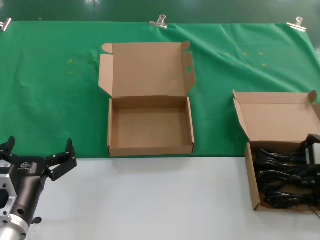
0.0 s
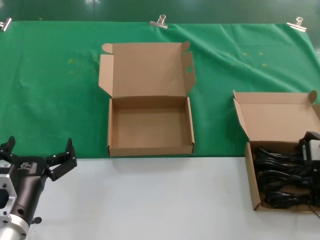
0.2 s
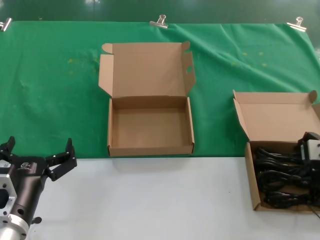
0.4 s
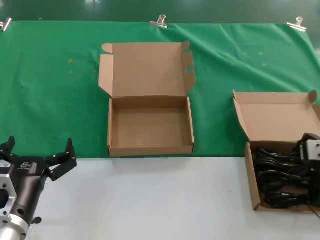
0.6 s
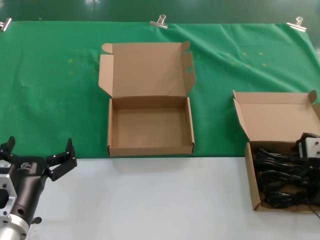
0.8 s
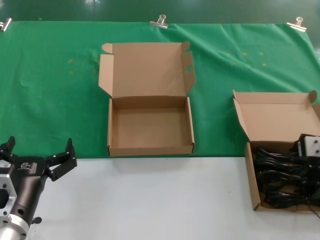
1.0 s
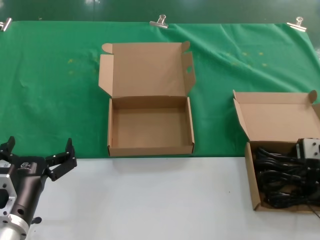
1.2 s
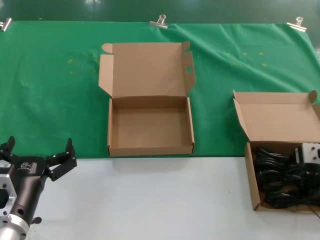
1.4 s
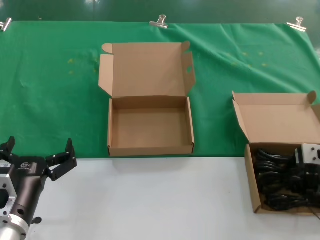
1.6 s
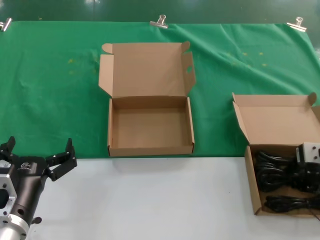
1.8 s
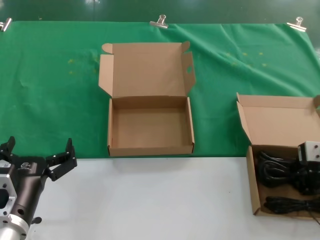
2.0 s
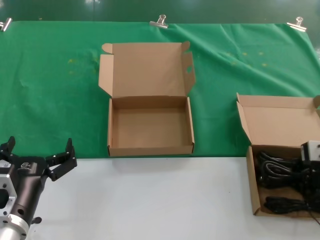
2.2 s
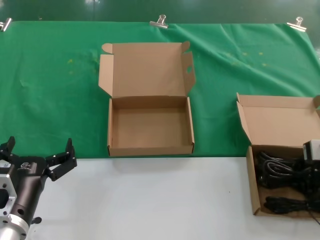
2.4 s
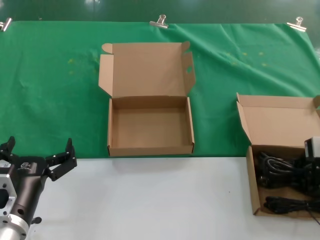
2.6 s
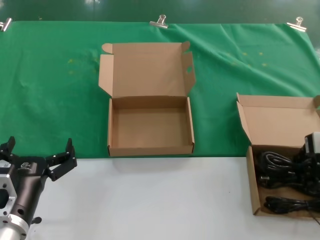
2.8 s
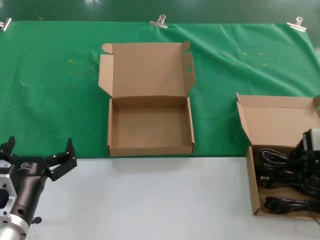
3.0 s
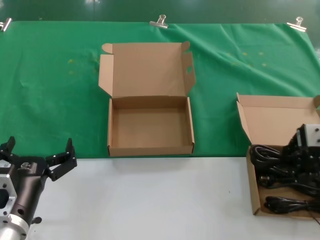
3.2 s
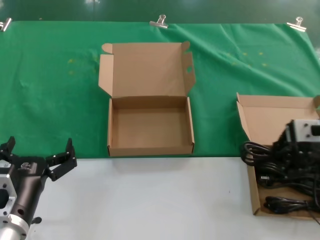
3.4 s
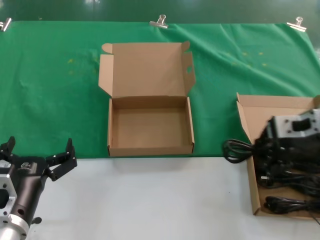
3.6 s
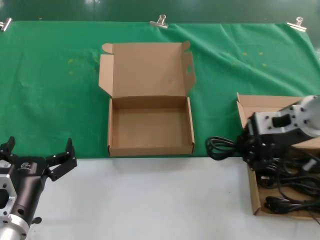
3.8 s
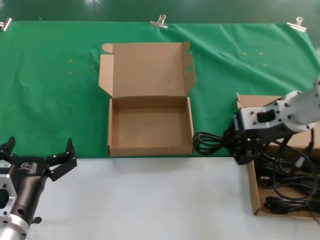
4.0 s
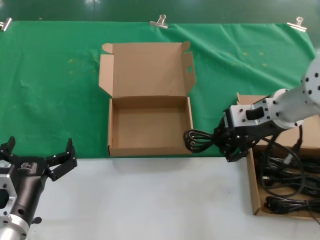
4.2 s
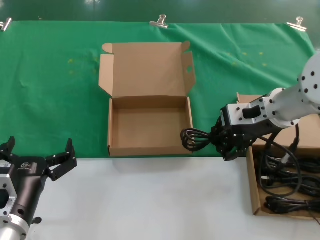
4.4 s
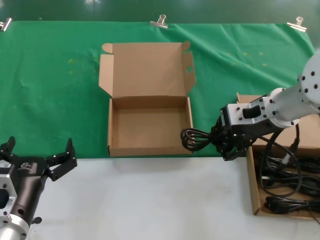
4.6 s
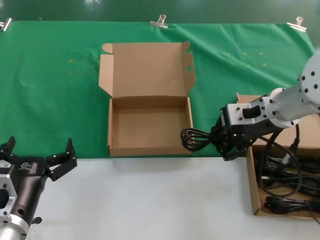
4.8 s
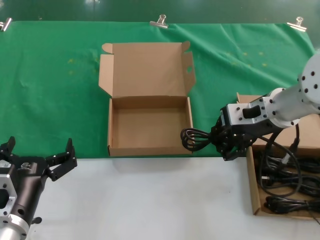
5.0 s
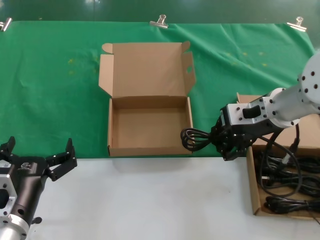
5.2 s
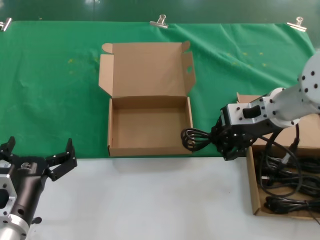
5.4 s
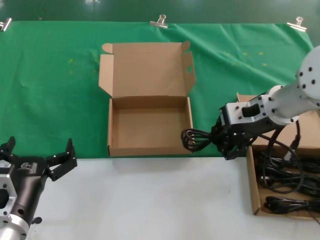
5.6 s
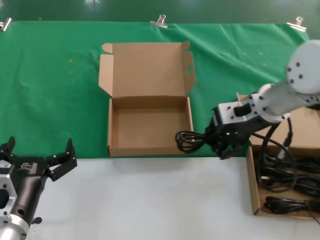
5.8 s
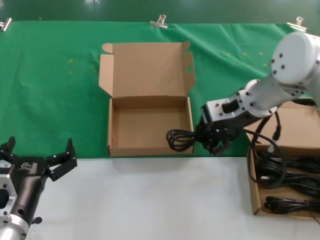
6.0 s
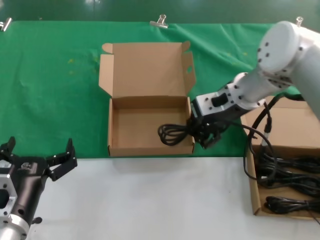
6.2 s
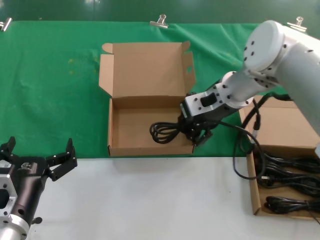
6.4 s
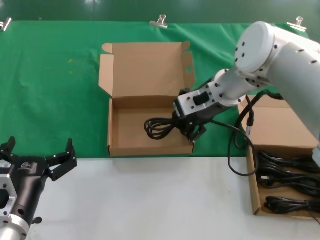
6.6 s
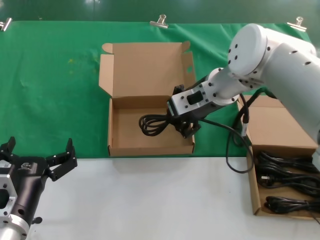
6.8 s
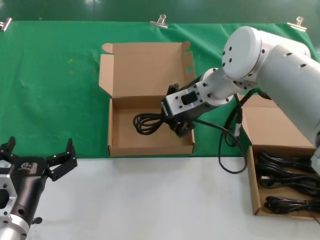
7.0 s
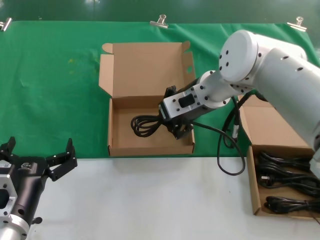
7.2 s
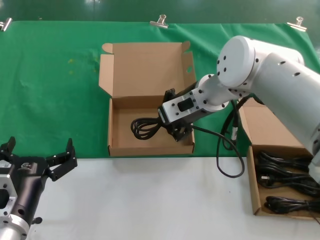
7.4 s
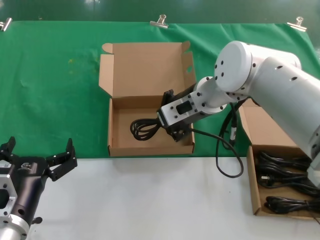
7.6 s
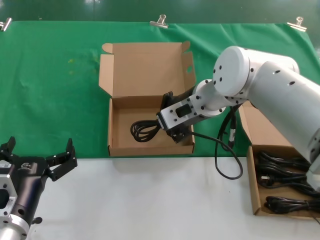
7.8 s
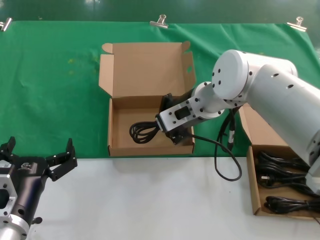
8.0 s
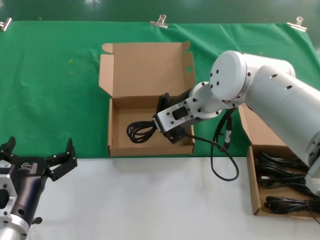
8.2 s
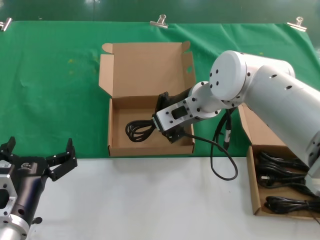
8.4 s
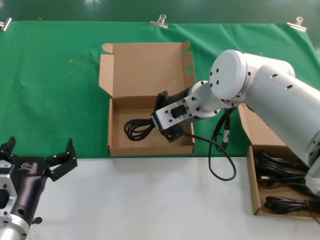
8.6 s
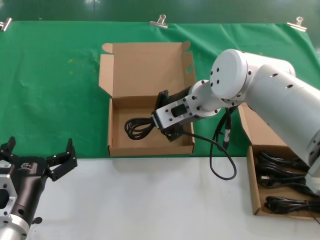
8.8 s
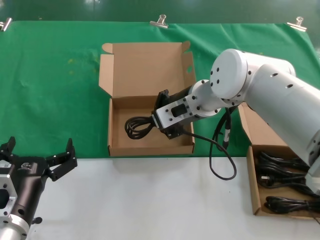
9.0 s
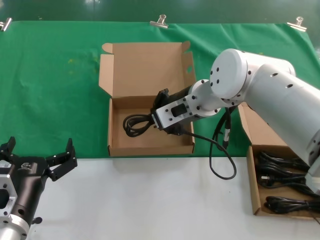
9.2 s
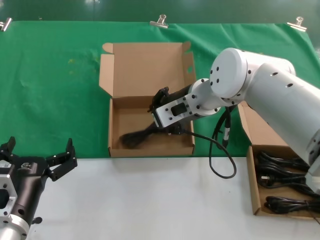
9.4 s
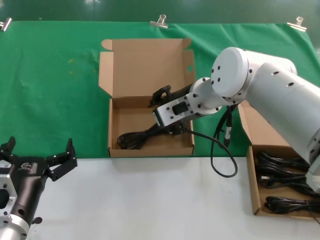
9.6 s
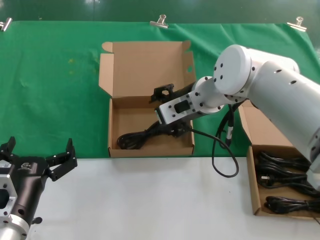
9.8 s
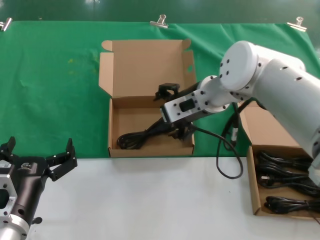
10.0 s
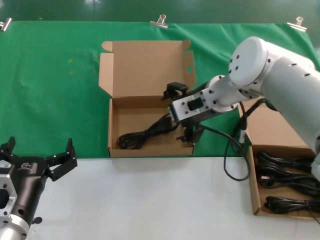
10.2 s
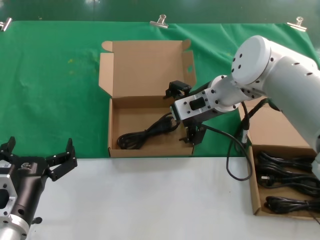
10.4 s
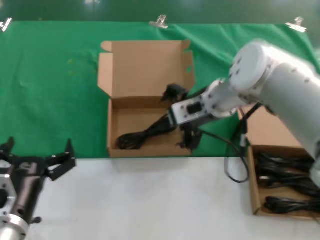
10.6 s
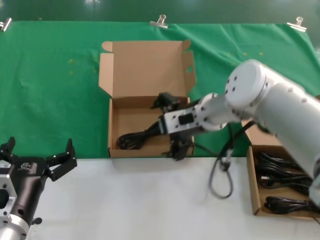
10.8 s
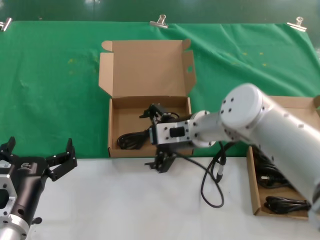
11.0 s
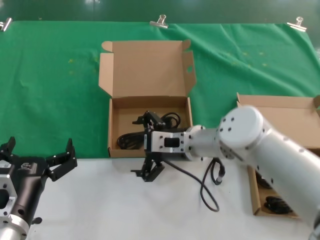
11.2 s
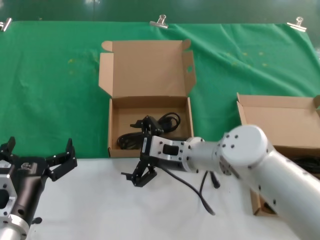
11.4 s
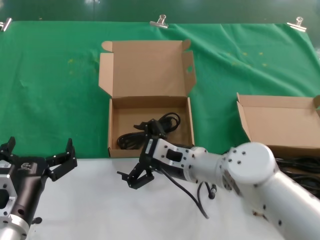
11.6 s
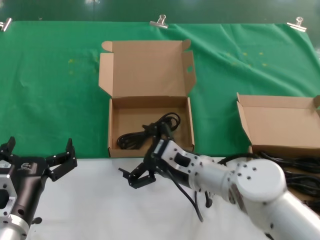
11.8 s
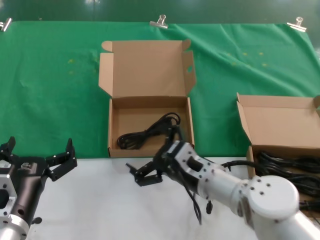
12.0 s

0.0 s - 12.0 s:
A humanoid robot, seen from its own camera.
Task of the whole recording: take the parts from the box containing them and put them into an empty box.
Step, 1.8 s - 9.2 s: Place the data cable in the another box.
0.0 s - 1.6 s: The hands make only small movements.
1.6 s - 3.0 s: The right hand changes place by about 5 cm.
3.0 s - 4.4 s: The right hand goes roughly 15 cm to the left and forward.
4.4 s - 6.0 s: The hands make only small movements.
6.0 s - 7.6 s: The right hand travels to the left by roughly 10 cm.
7.6 s - 10.4 s: The hands make only small movements.
10.4 s - 12.0 s: The right hand is displaced downward and backward by about 20 cm.

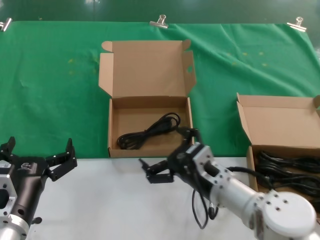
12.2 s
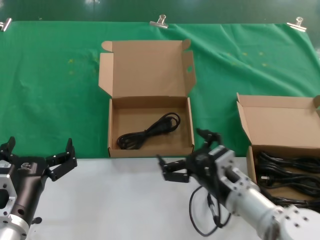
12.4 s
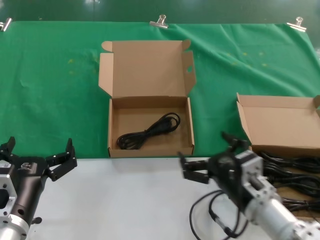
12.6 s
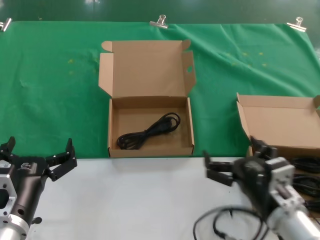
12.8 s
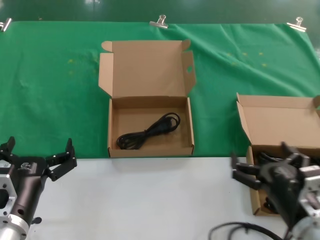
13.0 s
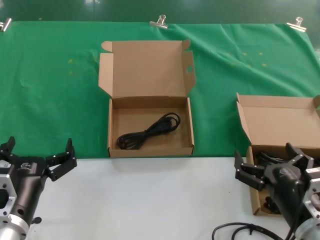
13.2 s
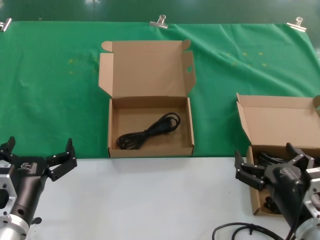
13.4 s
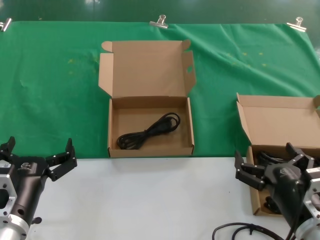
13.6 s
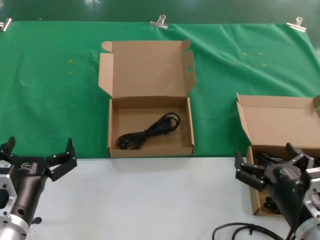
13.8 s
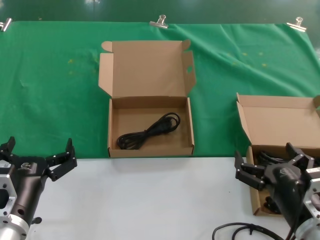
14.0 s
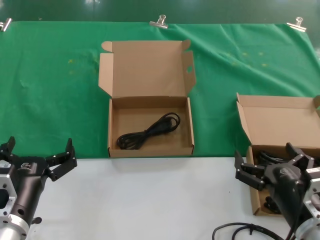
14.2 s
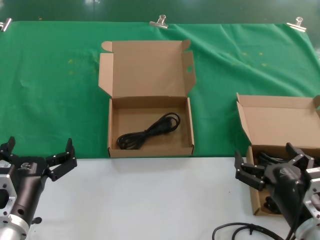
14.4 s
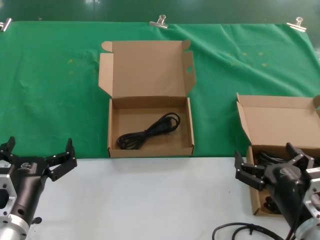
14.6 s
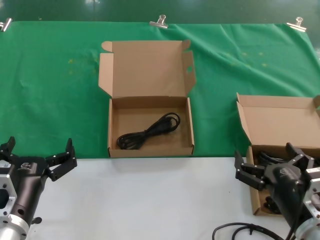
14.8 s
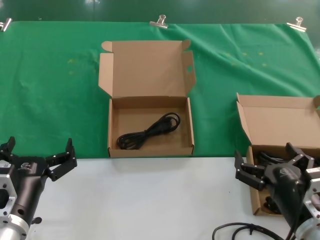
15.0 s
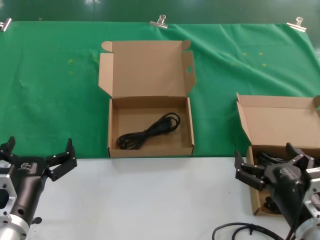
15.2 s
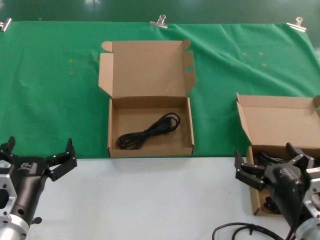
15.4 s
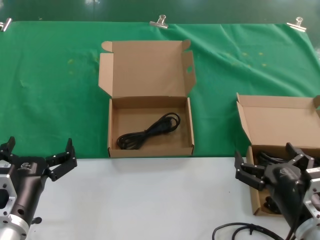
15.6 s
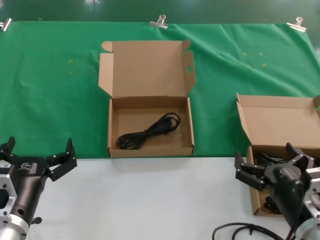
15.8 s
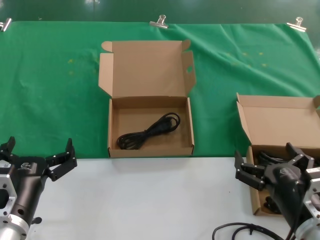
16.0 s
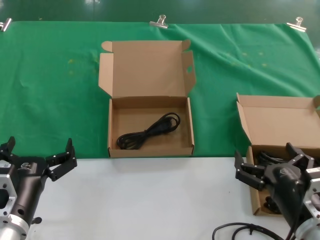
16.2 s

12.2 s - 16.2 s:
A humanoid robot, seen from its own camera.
Task of the whole recording: take the parts from the box containing them and put them into an empty box.
12.2 s - 13.6 s: The right hand moves backward and to the right, roughly 15 cm.
13.6 s - 16.2 s: Both hands stay about where they are.

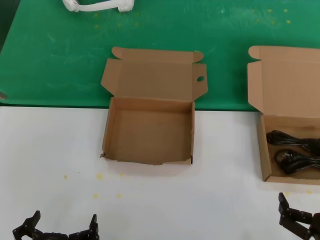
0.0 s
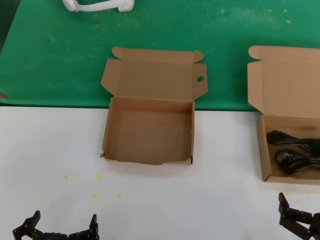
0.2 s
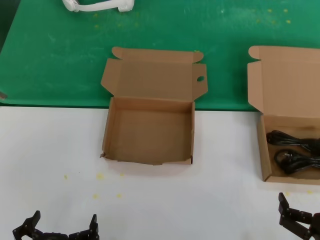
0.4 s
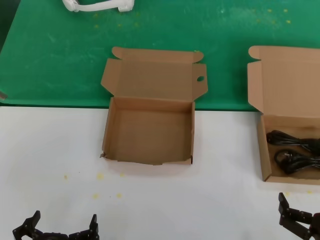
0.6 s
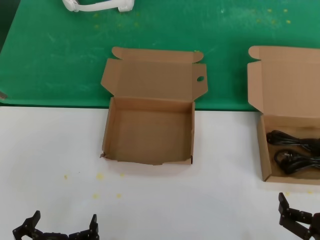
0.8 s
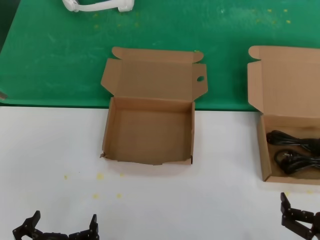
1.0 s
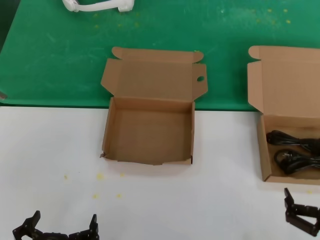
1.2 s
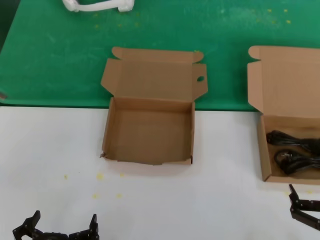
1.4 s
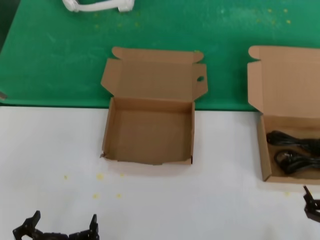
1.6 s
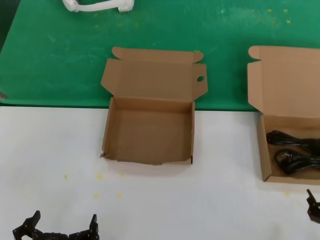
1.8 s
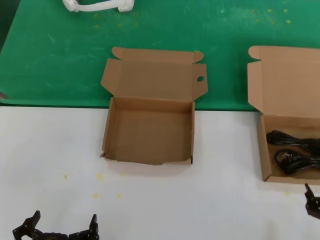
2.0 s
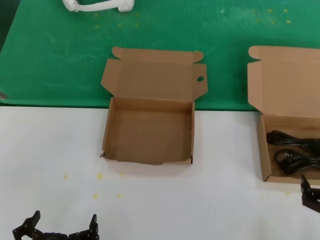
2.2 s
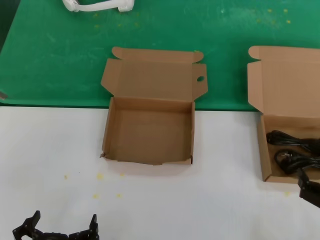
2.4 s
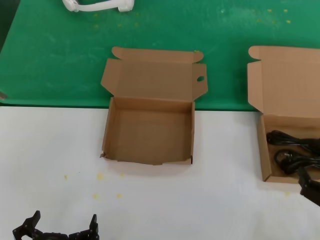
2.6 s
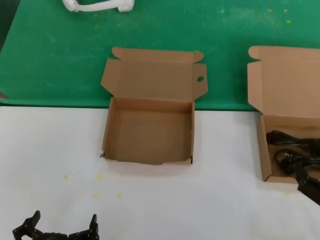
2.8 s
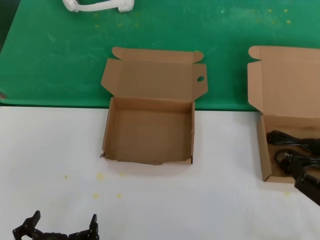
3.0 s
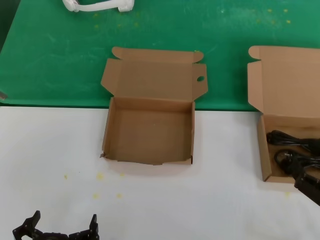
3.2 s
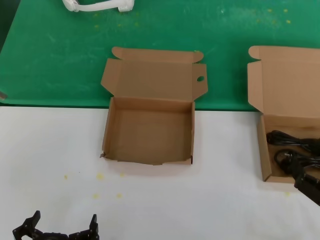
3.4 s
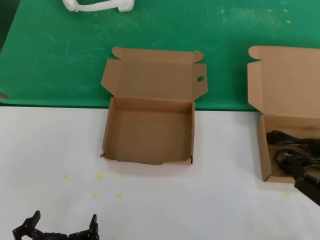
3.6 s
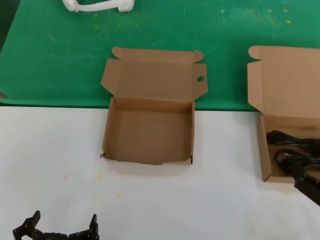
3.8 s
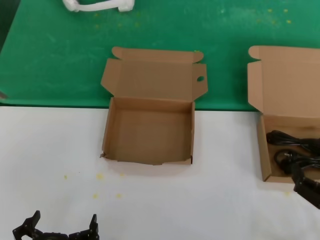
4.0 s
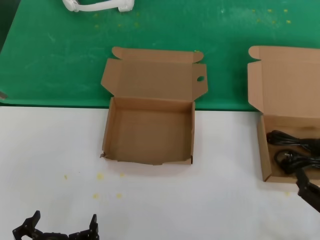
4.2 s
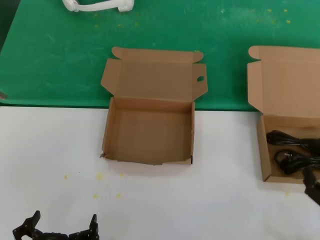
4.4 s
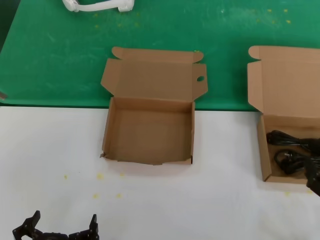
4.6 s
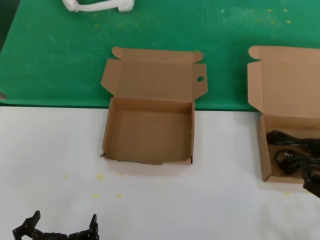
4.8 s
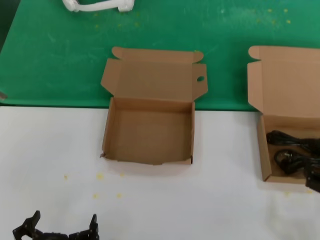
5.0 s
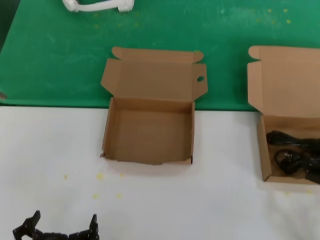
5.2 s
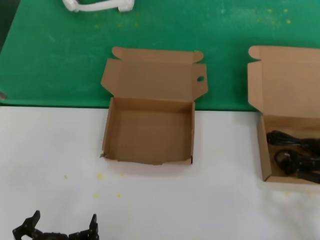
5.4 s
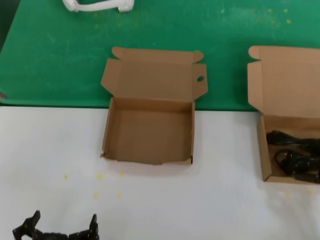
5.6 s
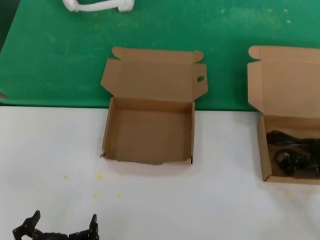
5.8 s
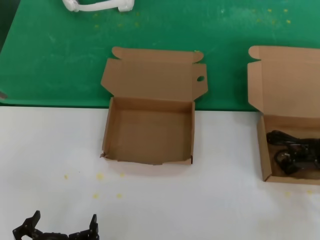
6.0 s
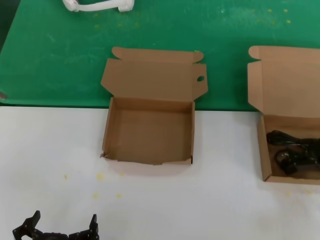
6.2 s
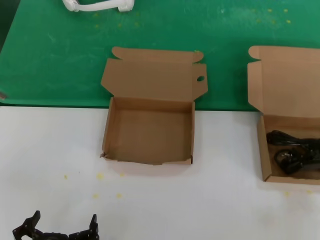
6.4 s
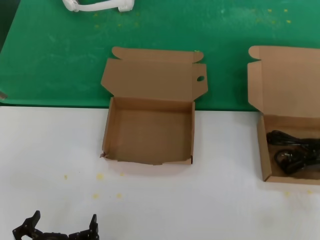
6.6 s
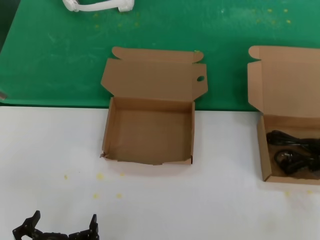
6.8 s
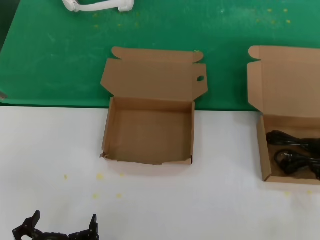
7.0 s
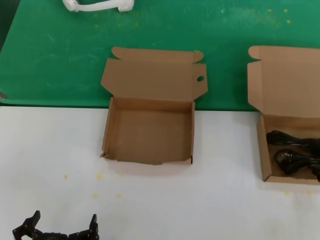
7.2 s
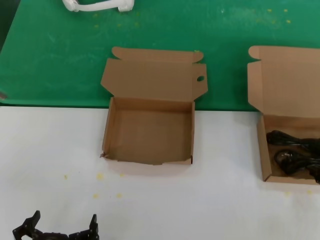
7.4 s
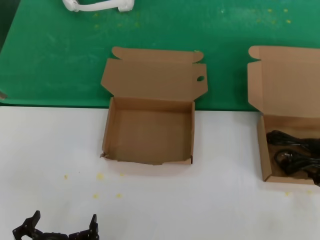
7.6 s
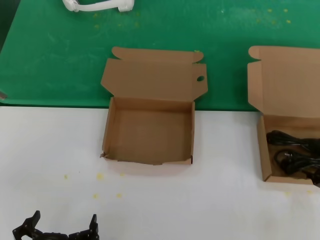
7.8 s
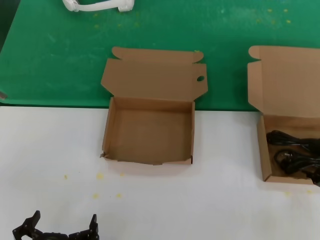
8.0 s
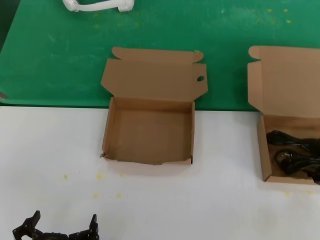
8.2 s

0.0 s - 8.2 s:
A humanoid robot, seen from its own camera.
Task of the whole recording: take the parts from the box containing them and put them into an empty box.
0.0 s - 1.6 s: The right hand is displaced upward by roughly 5 cm.
1.6 s - 3.2 s: The right hand shifts by approximately 5 cm.
3.2 s - 5.0 s: The right hand moves approximately 5 cm.
5.0 s - 6.6 s: The right hand travels forward and upward by roughly 15 cm.
